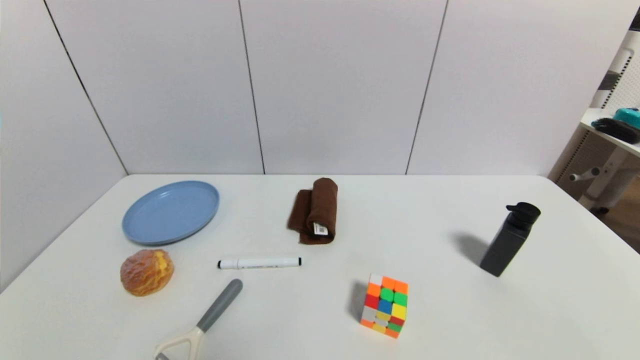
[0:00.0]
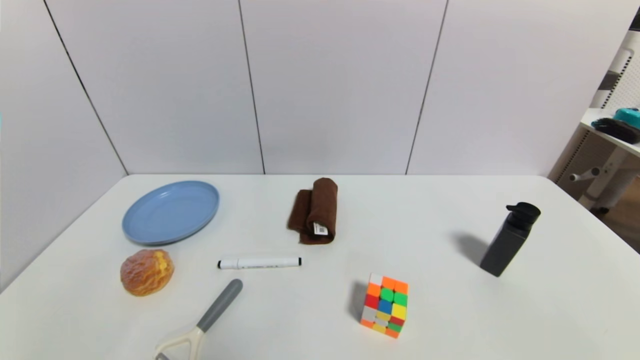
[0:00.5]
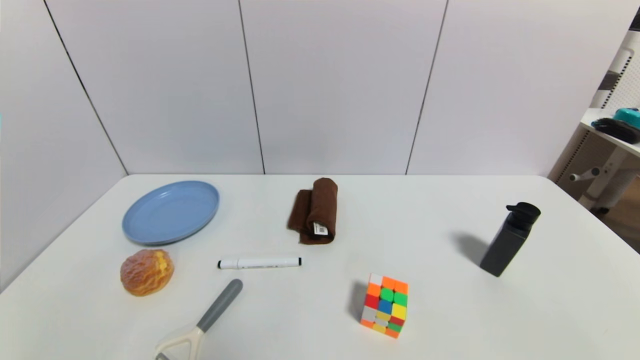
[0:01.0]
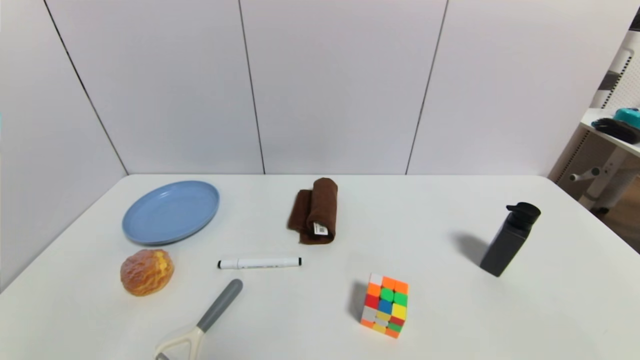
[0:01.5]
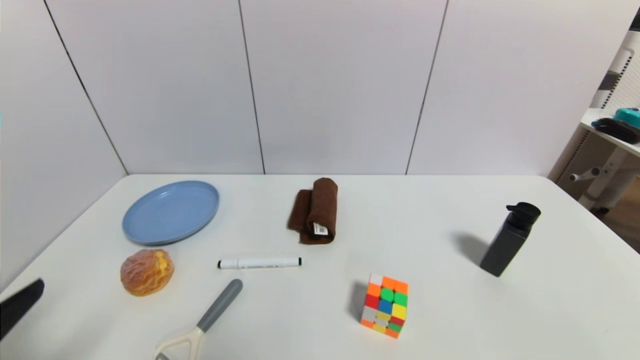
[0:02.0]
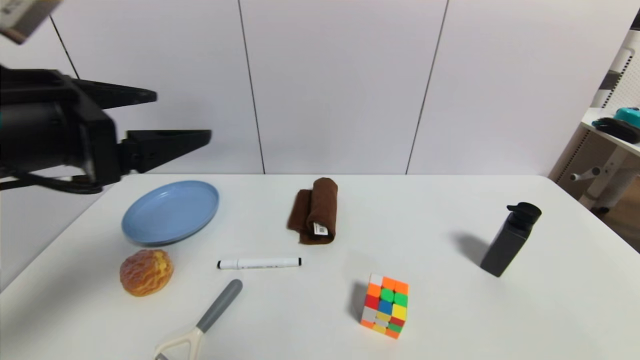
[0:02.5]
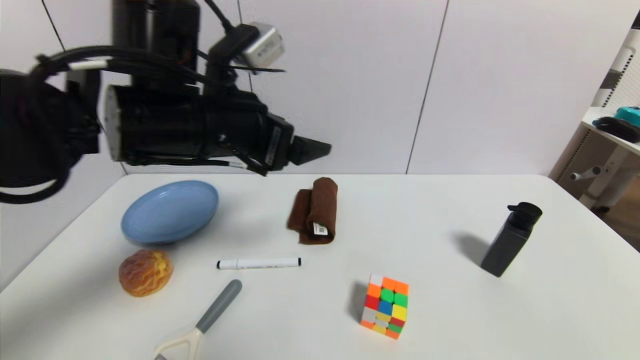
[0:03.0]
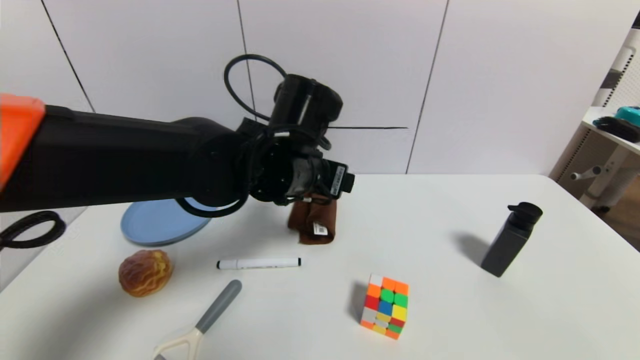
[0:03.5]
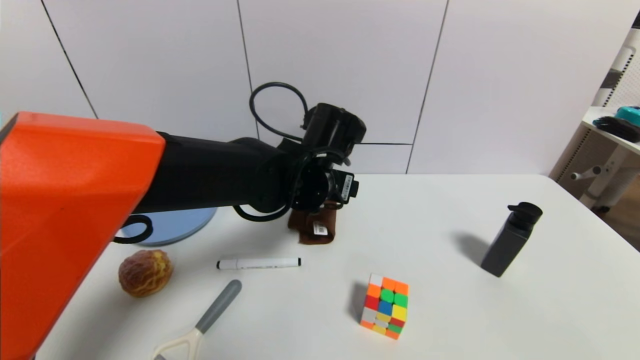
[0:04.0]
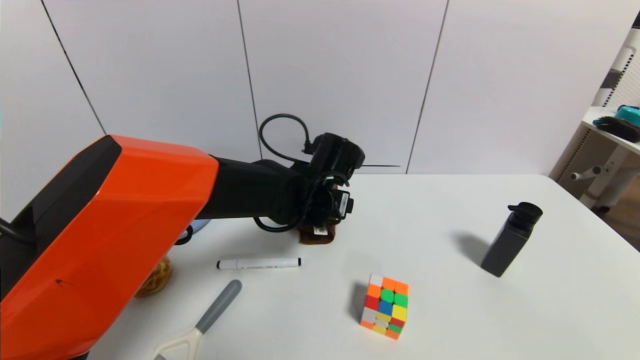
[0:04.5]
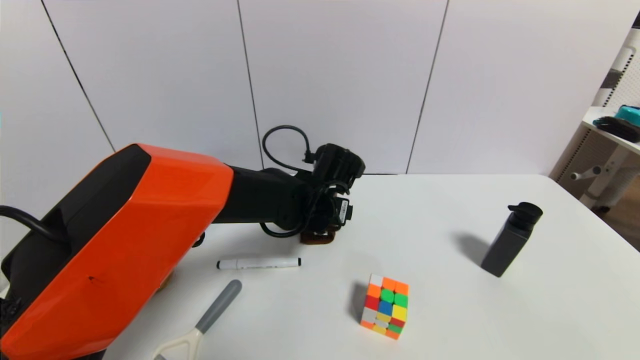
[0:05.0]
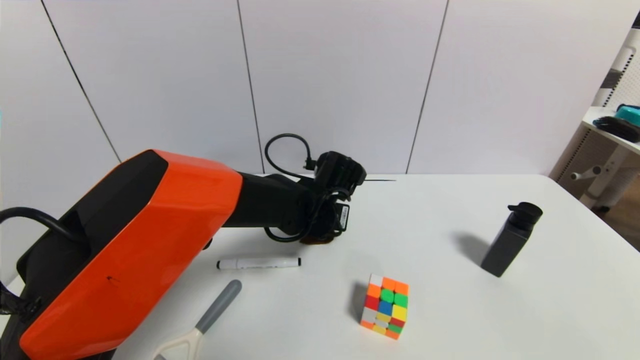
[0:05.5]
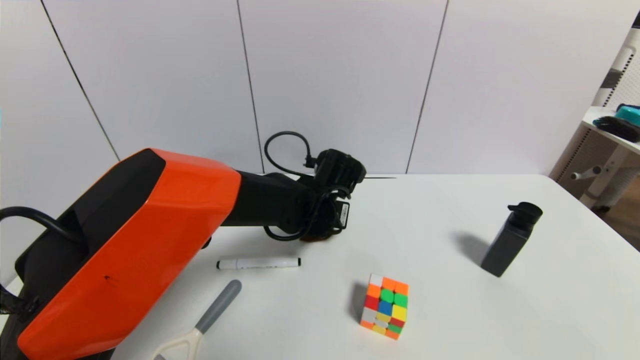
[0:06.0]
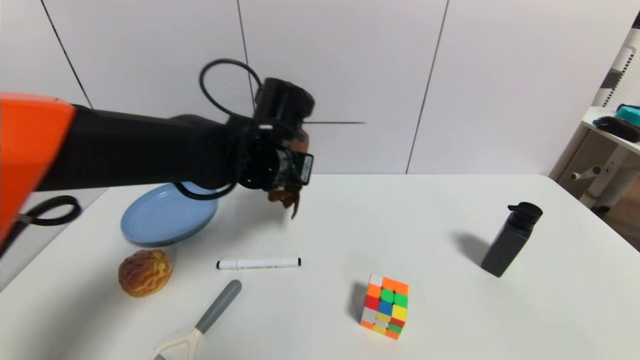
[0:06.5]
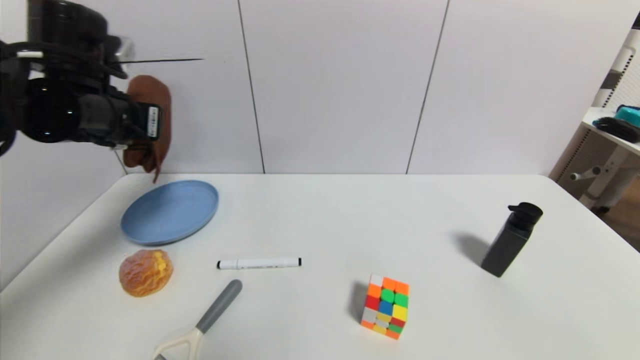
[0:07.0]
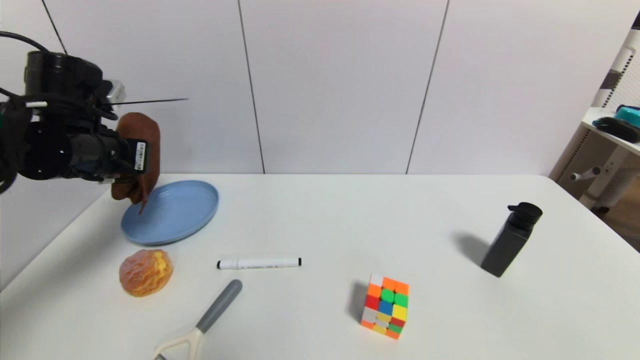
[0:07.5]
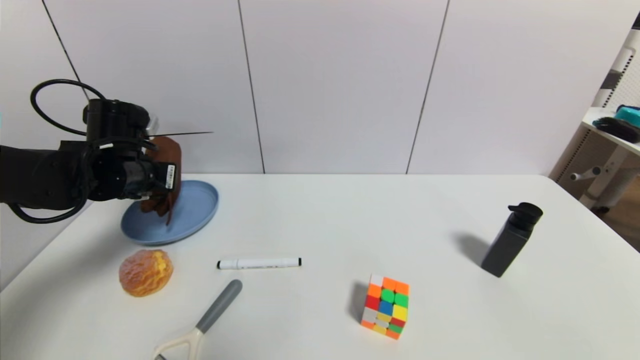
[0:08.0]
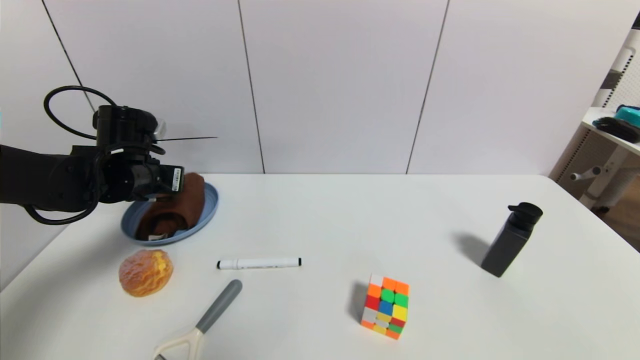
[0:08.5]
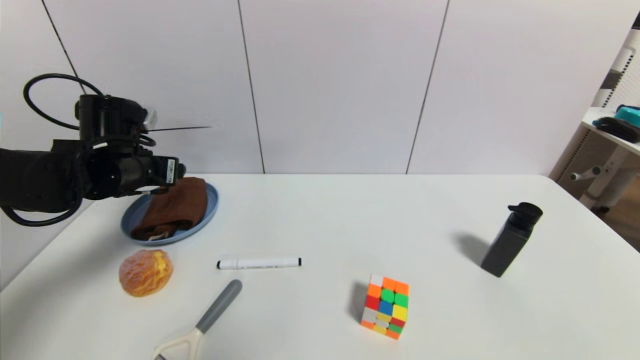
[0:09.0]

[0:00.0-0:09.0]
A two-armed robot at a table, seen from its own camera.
Task of the whole recording: use a gripper to pick the target object and place on the blue plate.
Step, 0:00.0 to 0:05.5: Grasp the brown towel with the left gripper.
0:00.0 to 0:02.0: The left gripper travels upward by roughly 15 cm.
0:02.0 to 0:04.5: The left gripper is displaced forward and to the right by roughly 40 cm.
0:04.5 to 0:07.0: The left gripper heads to the left and upward, covering some 30 cm, and closes its fingers.
0:07.0 to 0:09.0: The left gripper travels downward by approximately 10 cm, and opens its fingers.

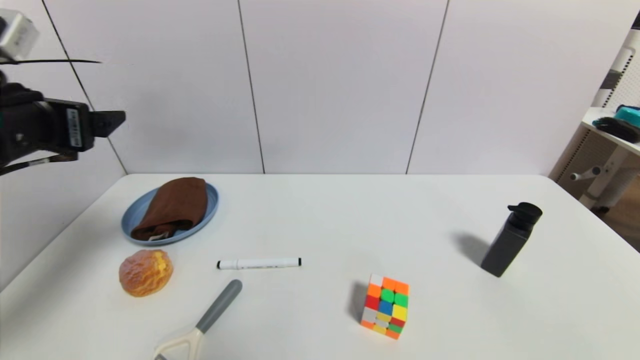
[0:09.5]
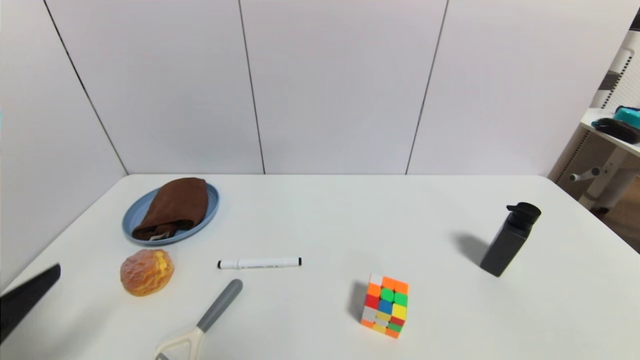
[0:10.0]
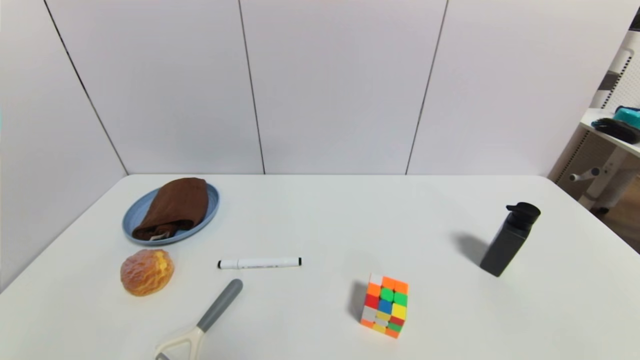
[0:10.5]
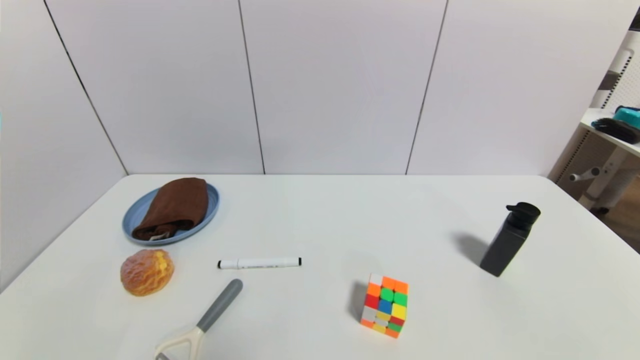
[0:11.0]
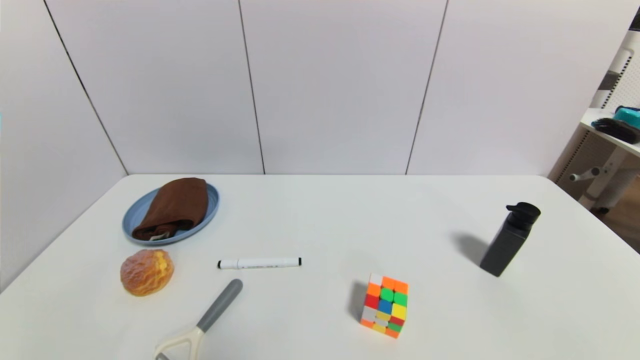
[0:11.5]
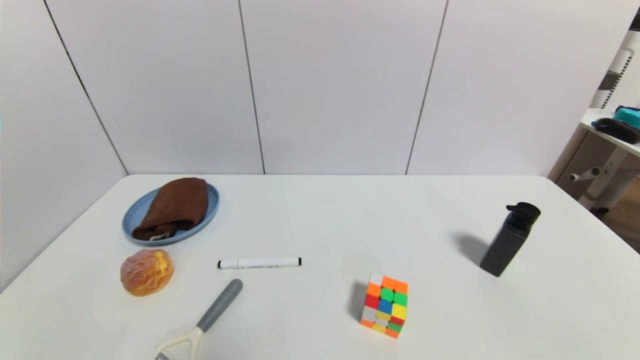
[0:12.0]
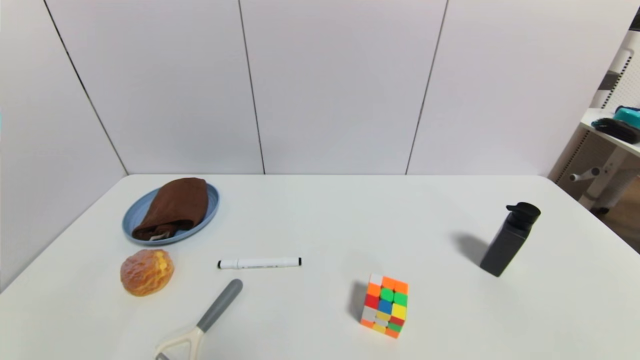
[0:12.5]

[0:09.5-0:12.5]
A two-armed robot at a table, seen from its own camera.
Task of the whole recording: use a gripper to pick the target object and place on the blue plate.
0:09.5 to 0:11.0: The left gripper goes approximately 30 cm downward and backward.
0:11.0 to 0:12.5: Neither gripper changes place.
